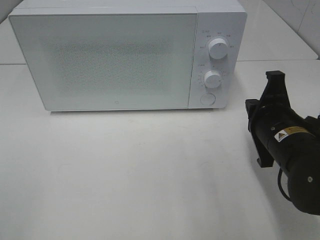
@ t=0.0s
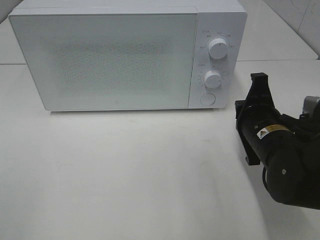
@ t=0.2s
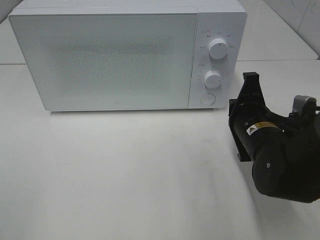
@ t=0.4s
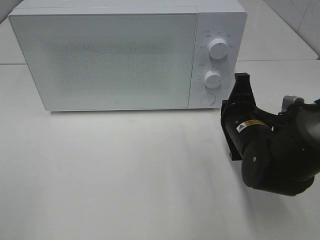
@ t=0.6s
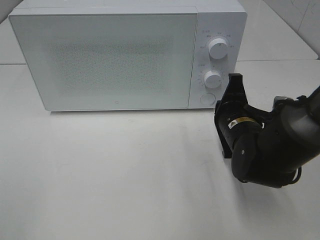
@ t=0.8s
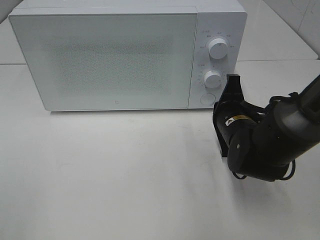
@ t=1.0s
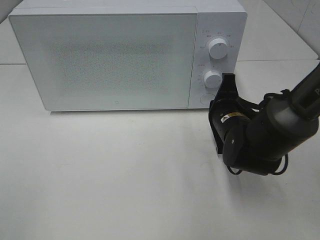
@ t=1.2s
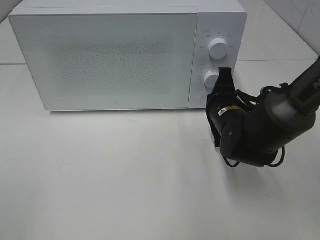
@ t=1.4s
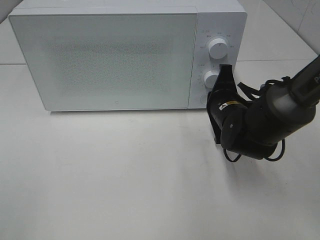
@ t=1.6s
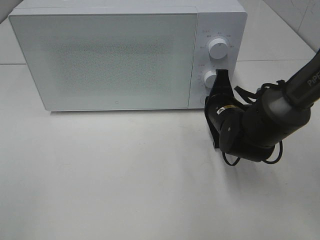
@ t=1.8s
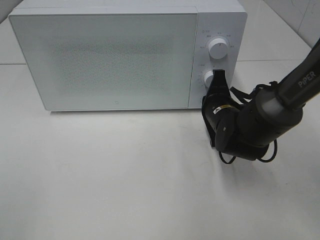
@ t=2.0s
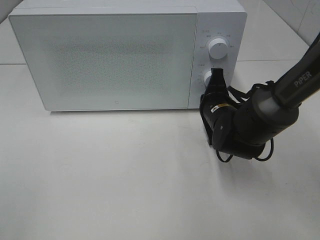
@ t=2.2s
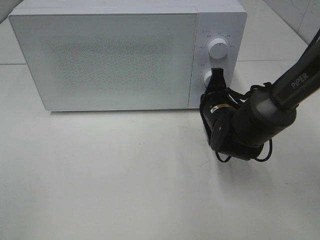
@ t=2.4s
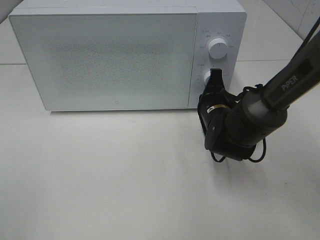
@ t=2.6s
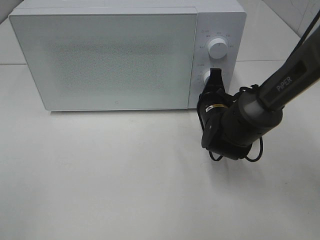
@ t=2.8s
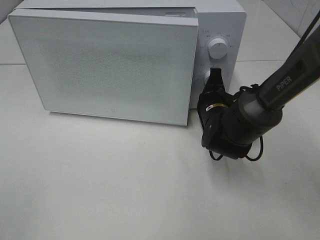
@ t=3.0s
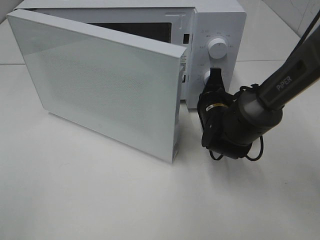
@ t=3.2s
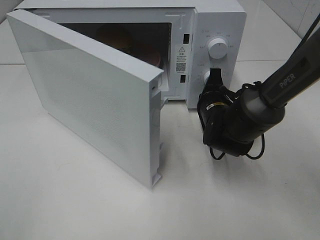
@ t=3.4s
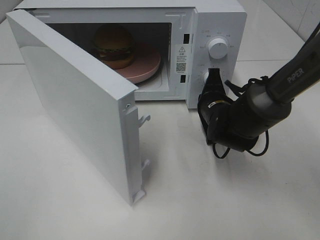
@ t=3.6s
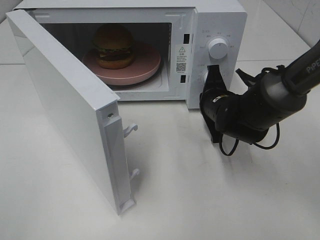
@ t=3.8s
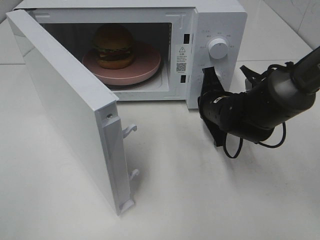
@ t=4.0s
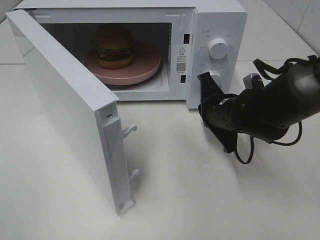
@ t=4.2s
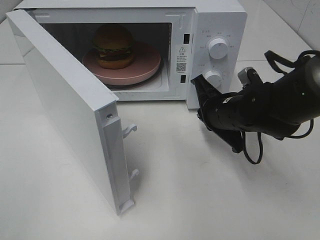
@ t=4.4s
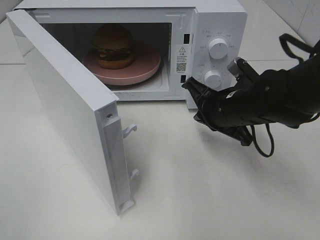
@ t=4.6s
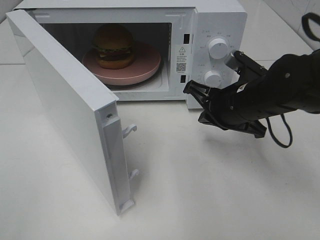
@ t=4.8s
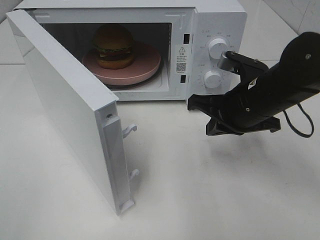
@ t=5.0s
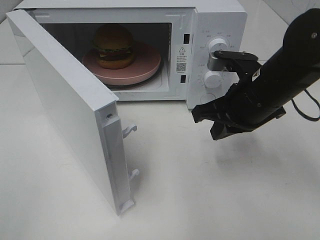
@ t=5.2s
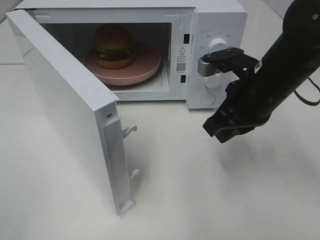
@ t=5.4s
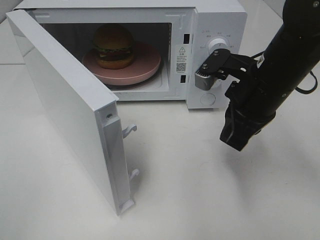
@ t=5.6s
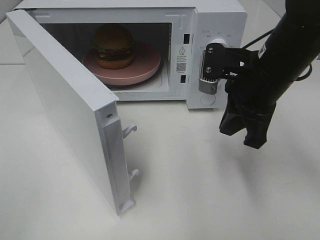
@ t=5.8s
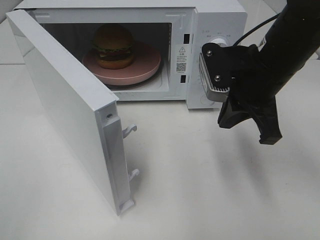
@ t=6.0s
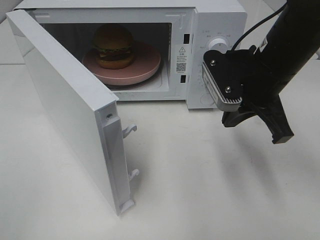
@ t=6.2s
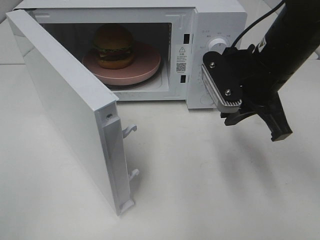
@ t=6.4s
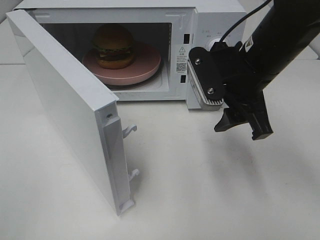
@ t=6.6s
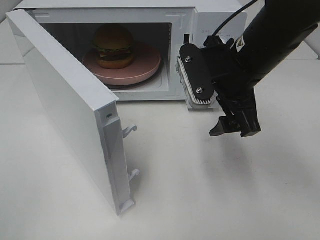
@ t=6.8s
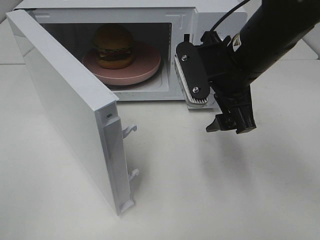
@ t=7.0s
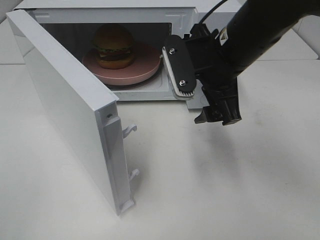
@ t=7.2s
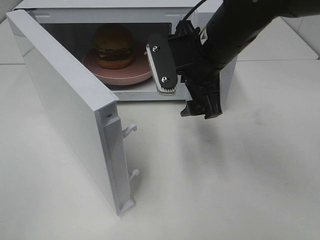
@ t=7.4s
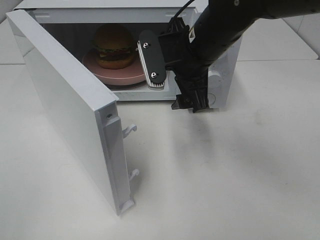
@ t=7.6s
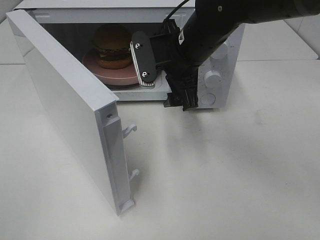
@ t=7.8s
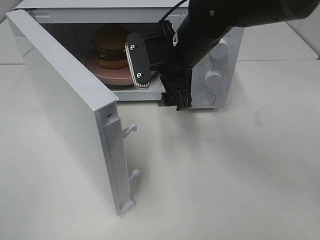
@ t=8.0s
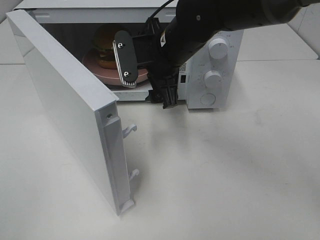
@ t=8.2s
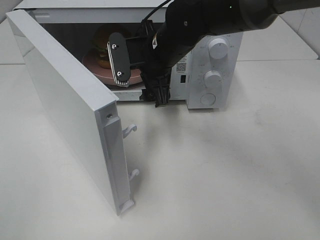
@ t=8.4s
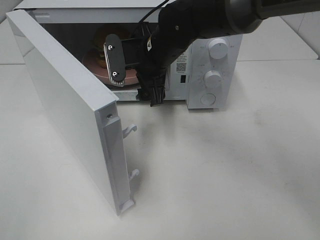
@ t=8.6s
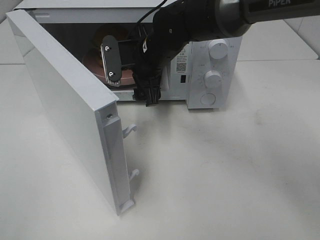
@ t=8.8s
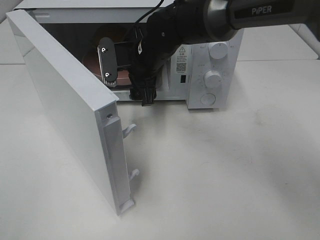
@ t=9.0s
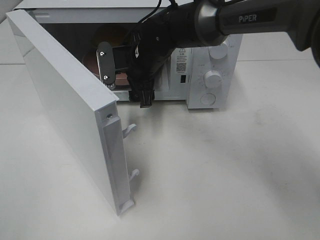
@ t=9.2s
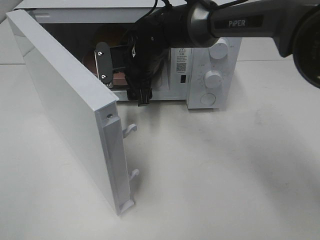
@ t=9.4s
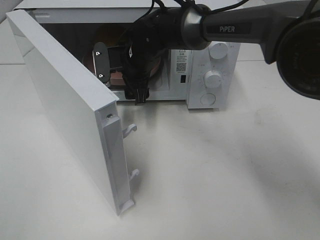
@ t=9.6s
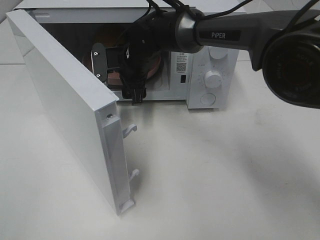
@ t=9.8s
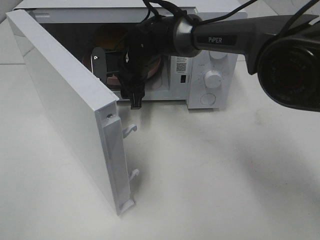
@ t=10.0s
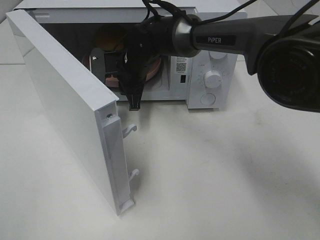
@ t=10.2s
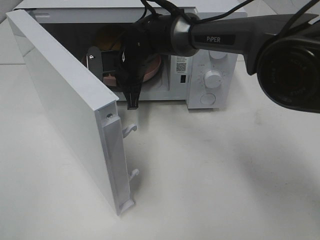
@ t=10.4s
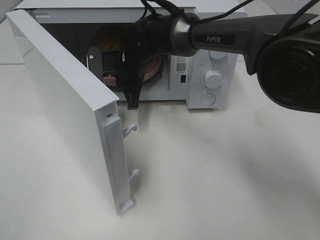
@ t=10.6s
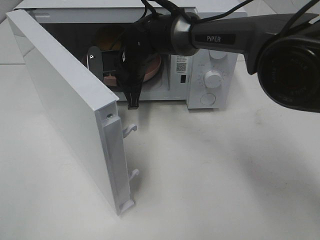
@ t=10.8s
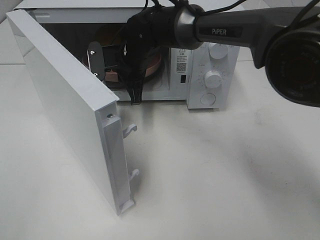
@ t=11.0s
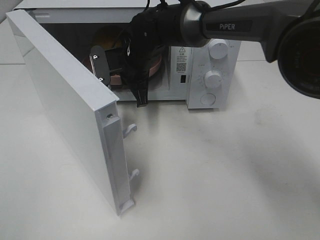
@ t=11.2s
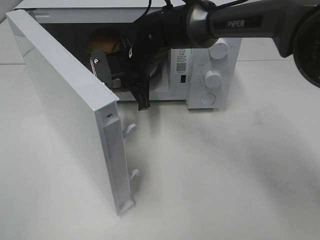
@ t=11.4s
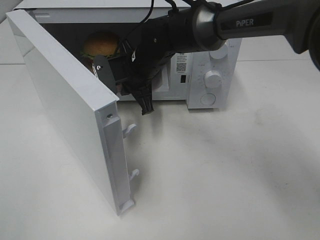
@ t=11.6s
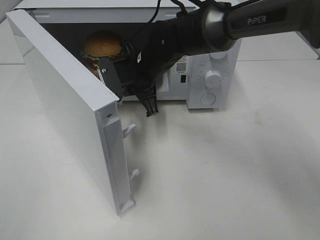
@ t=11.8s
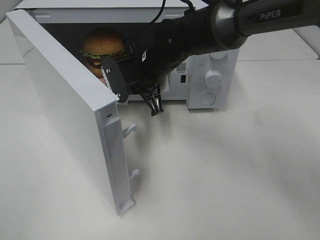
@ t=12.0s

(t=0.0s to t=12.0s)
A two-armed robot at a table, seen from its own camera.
Task of the whole recording: Heat the burger.
Step, t=0.0s - t=4.2s: Right hand: press the switch.
Step, t=4.4s - t=10.8s: Right hand: grab the plate with the hamburger.
t=0.0s - t=1.6s: The right gripper goes some 10 cm forward.
t=1.6s - t=3.0s: The grippers move only a little.
t=3.0s - t=4.4s: The right gripper changes place by approximately 5 cm.
t=4.4s - t=6.0s: The right gripper heads upward, covering about 10 cm.
t=6.0s - t=7.6s: The right gripper travels to the left by roughly 10 cm, and opens its fingers.
t=7.6s - t=9.0s: The right gripper is displaced forward, to the left and downward by roughly 10 cm.
t=9.0s - t=10.4s: The right gripper ends up roughly 5 cm from where it was, and closes.
t=10.4s - t=12.0s: The right gripper changes place by roughly 5 cm.

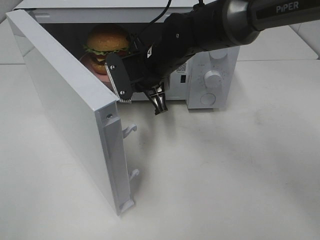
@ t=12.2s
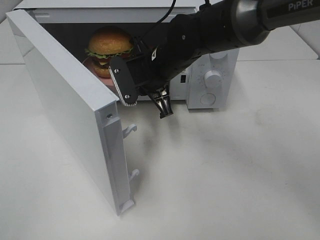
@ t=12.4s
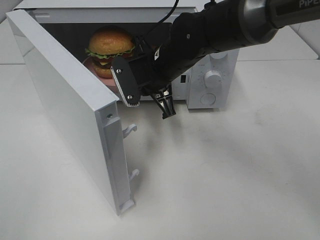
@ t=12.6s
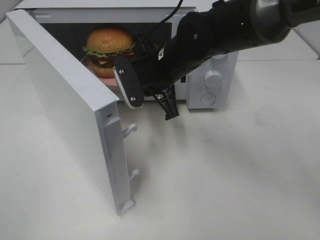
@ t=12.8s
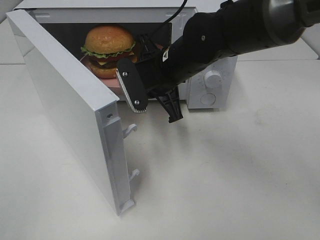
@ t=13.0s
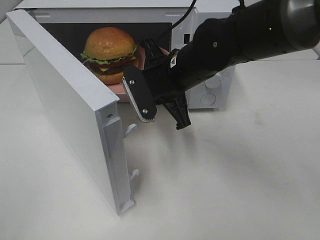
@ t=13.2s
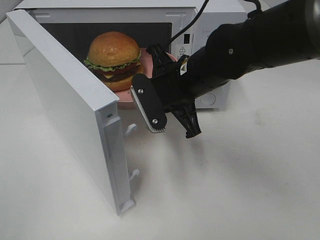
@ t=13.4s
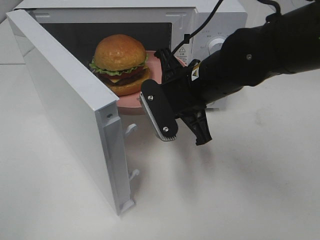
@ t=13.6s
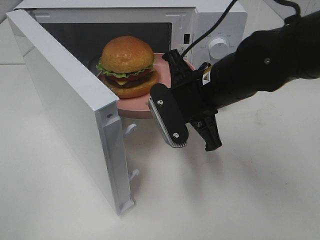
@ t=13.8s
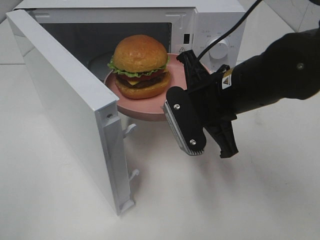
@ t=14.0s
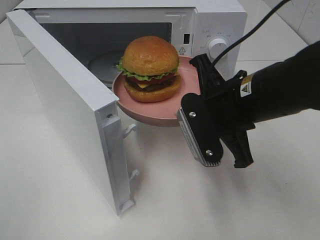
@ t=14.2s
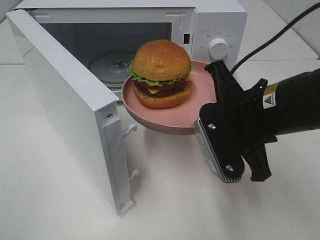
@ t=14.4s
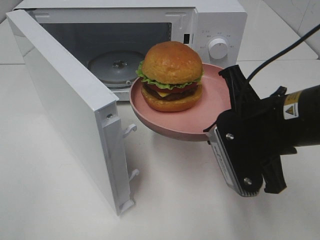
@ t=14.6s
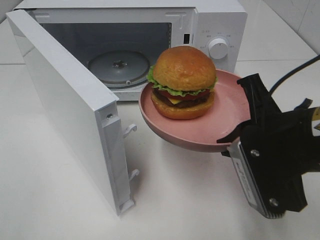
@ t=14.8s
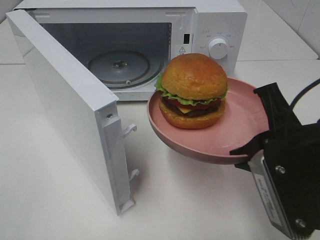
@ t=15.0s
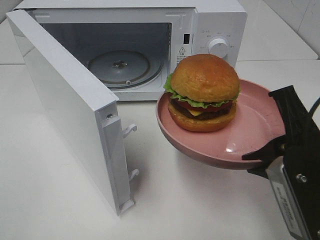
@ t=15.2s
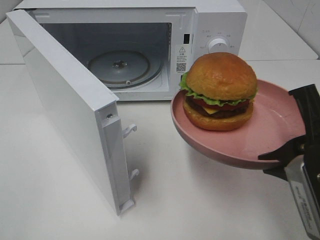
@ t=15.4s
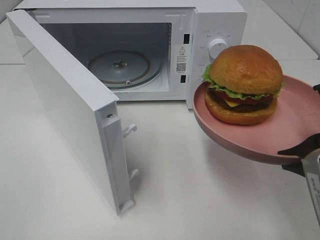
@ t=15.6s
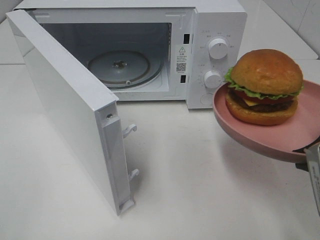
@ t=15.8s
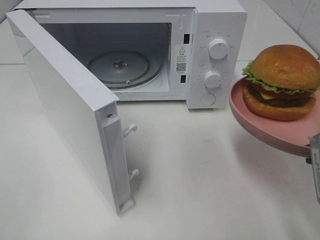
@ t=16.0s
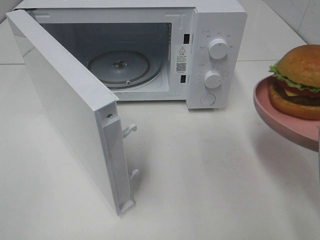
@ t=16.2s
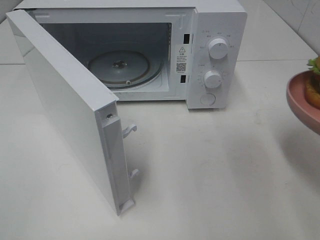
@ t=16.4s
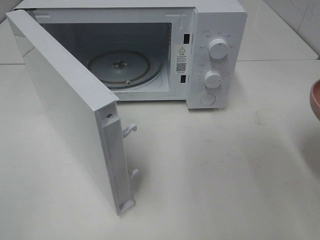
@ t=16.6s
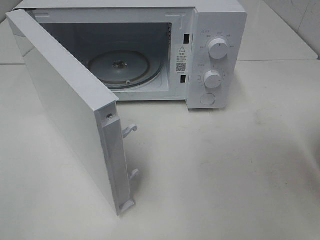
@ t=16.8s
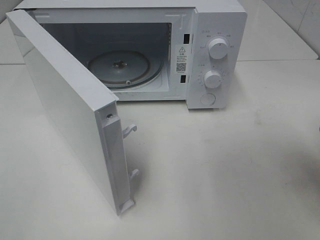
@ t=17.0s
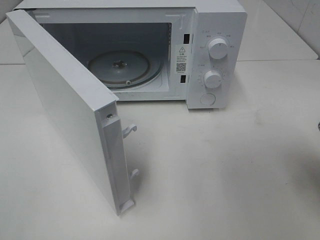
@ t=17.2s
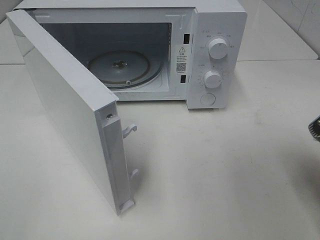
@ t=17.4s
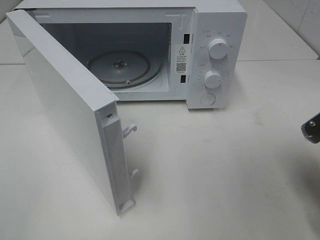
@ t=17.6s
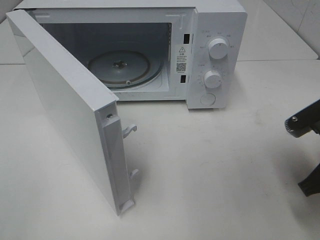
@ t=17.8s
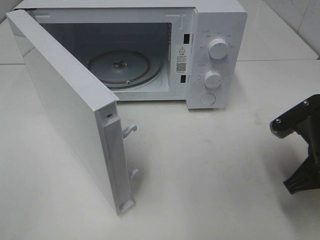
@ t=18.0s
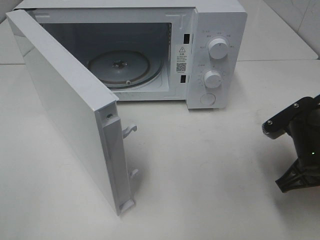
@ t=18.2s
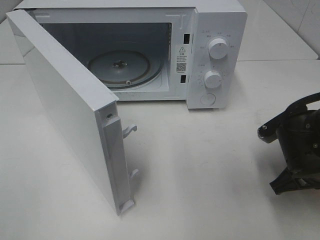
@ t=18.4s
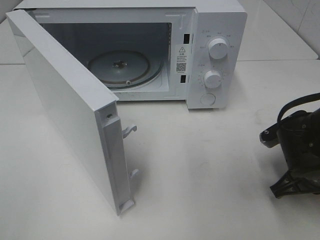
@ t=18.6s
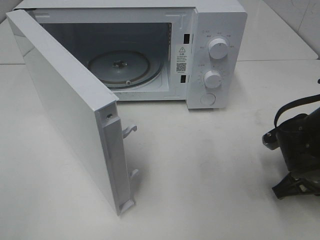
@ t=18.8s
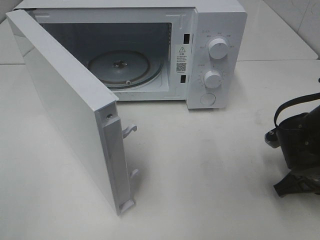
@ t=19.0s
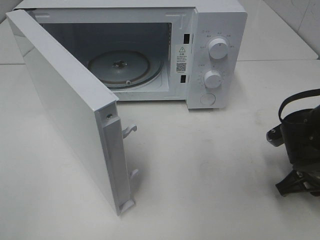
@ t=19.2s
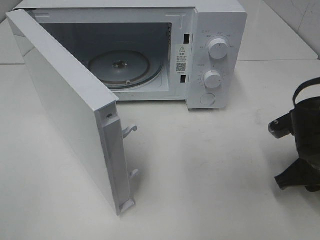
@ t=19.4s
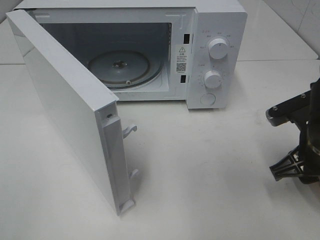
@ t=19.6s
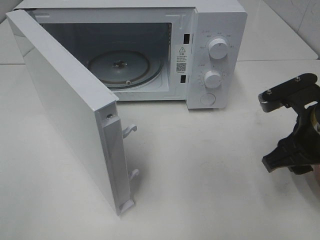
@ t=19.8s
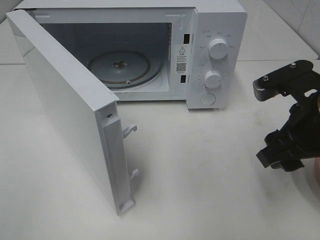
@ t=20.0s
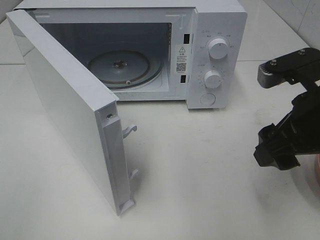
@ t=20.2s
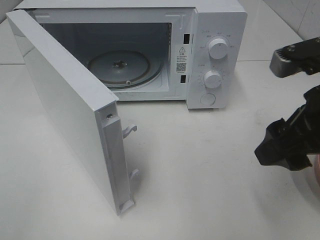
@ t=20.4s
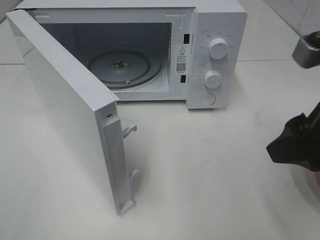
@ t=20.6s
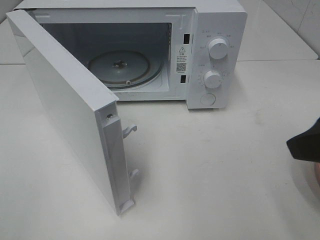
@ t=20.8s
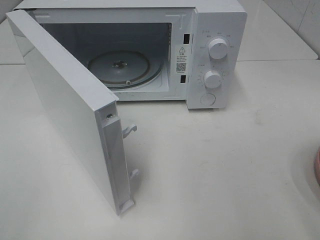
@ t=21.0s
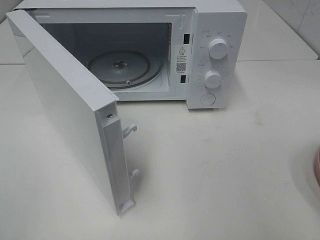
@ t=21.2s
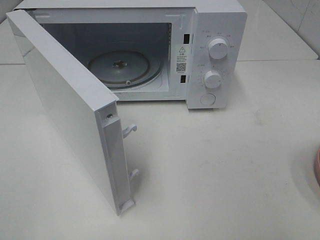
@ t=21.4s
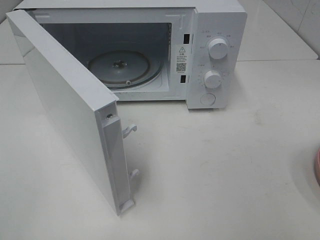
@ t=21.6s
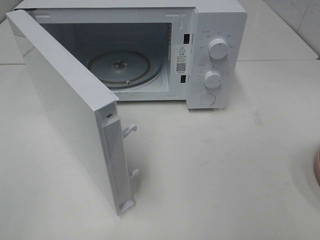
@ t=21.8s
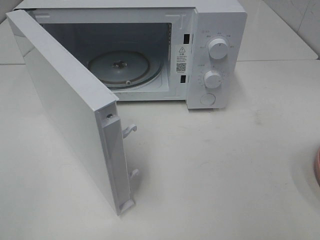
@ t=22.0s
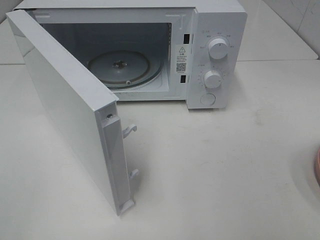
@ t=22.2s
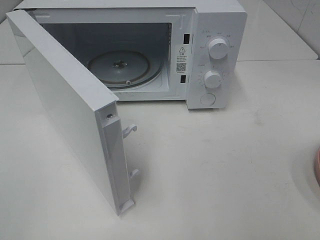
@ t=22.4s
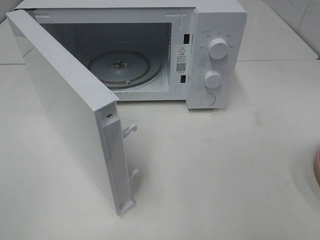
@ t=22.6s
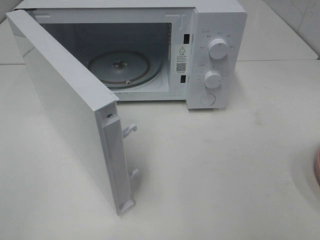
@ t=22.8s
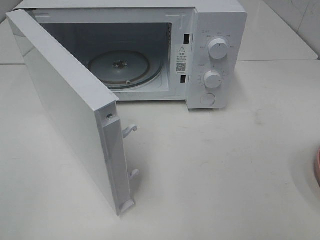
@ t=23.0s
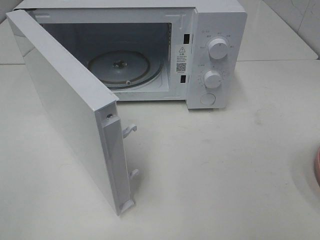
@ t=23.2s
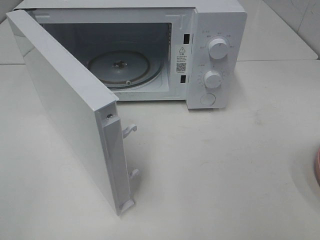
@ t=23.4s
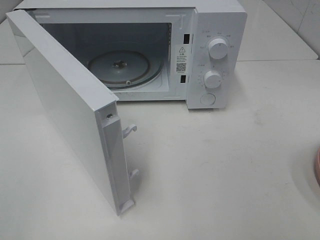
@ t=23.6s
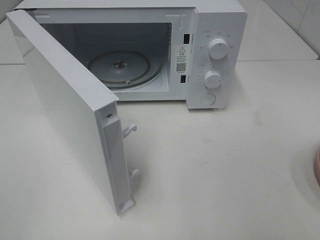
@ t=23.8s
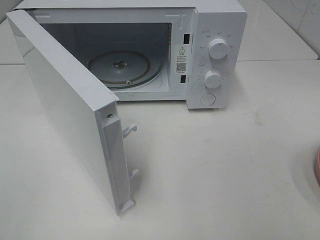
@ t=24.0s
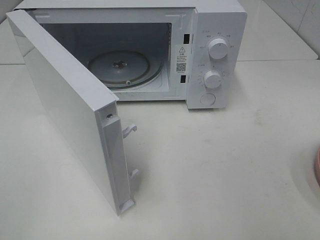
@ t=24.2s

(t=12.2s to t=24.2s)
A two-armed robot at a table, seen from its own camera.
Task of the whole recording: Heat the burger.
Step, t=12.2s - t=19.6s: Right hand: place the plate on the table.
t=12.2s - t=13.8s: The right gripper moves backward and to the right, approximately 15 cm.
t=13.8s - t=15.2s: The right gripper is displaced backward and to the right by some 15 cm.
t=15.2s - t=16.6s: The right gripper moves to the right, roughly 5 cm.
t=16.6s - t=18.2s: The right gripper is displaced downward and forward by roughly 10 cm.
t=18.2s - t=19.8s: The right gripper goes about 5 cm upward, and opens up.
t=19.8s - t=21.2s: The right gripper travels backward and upward by approximately 20 cm.
